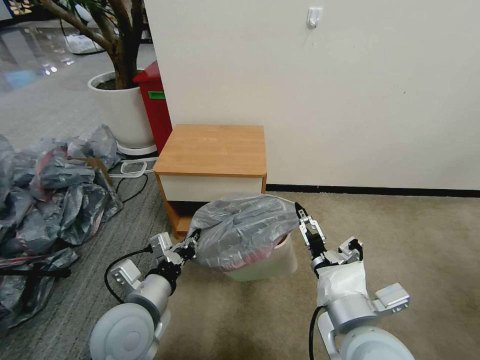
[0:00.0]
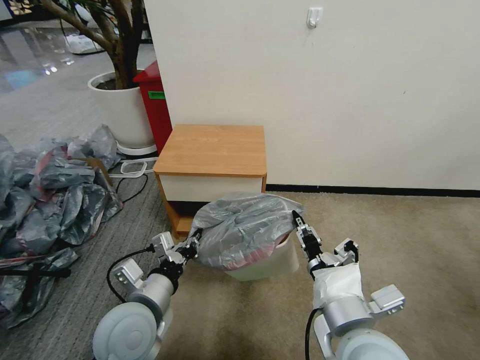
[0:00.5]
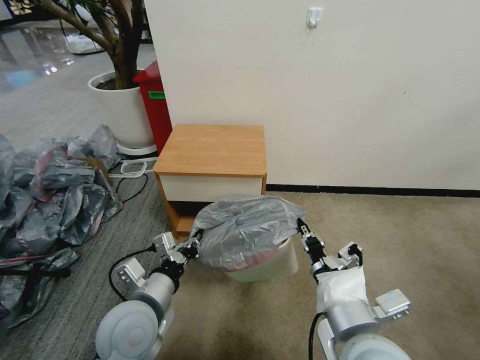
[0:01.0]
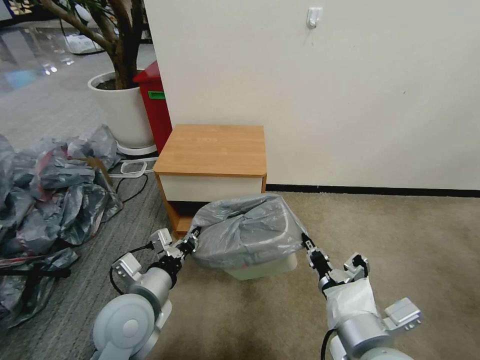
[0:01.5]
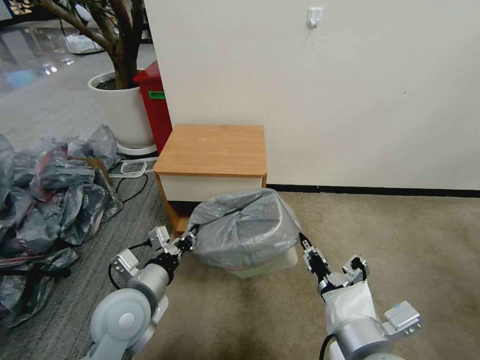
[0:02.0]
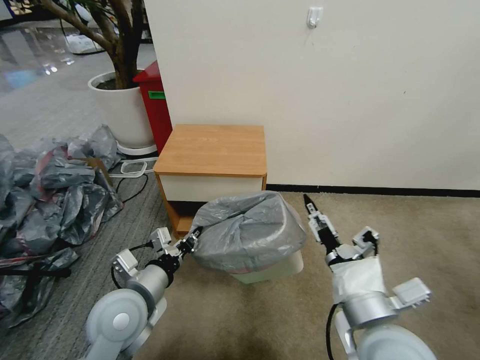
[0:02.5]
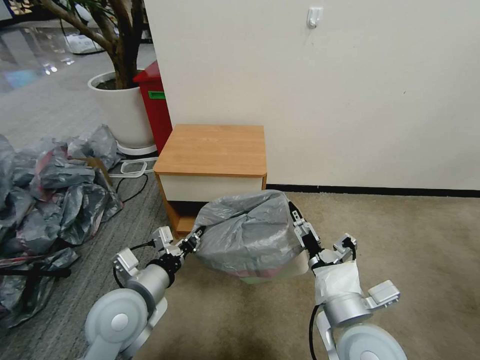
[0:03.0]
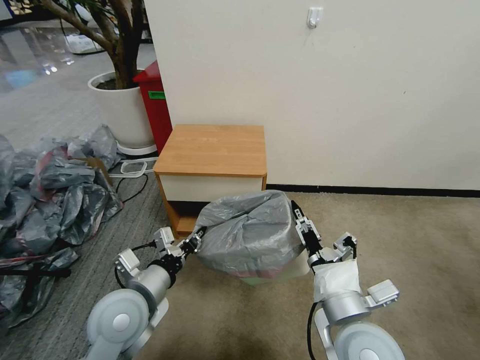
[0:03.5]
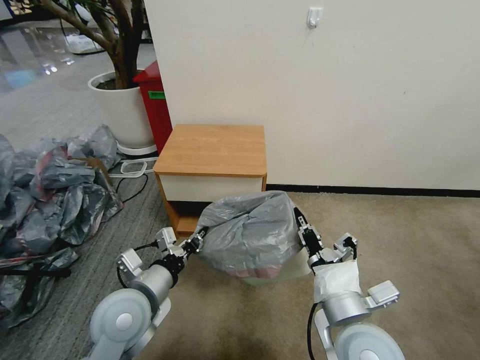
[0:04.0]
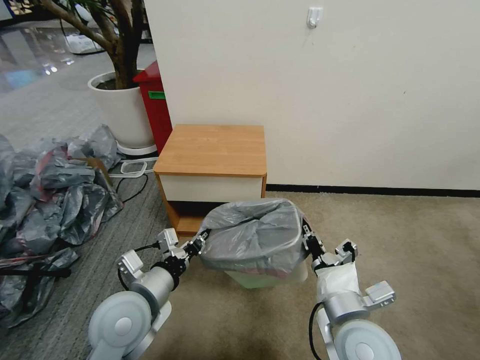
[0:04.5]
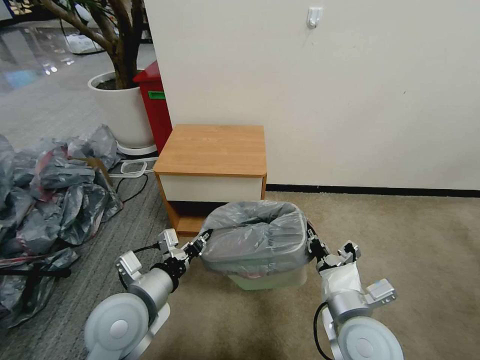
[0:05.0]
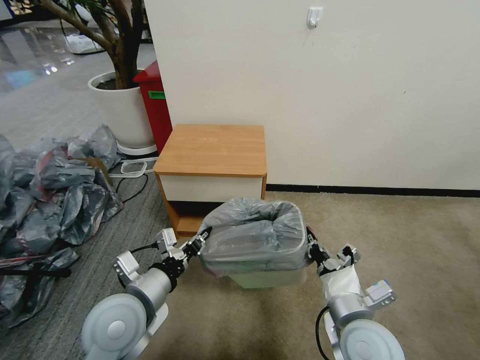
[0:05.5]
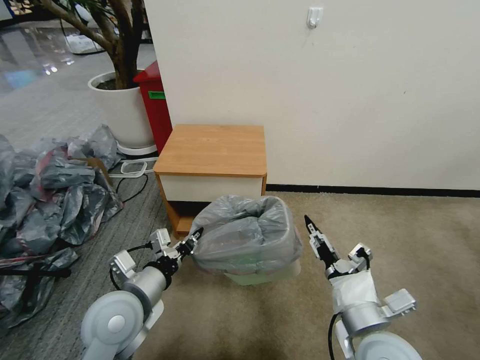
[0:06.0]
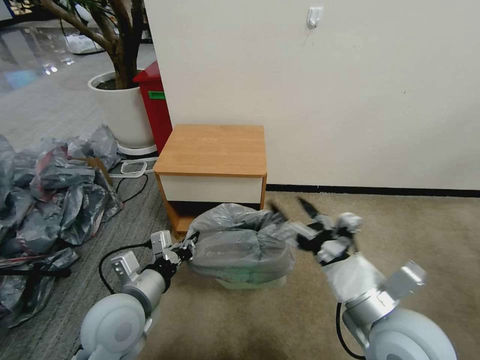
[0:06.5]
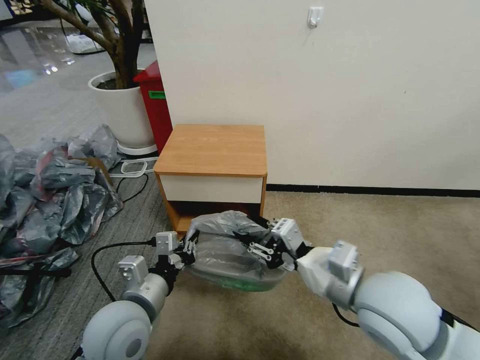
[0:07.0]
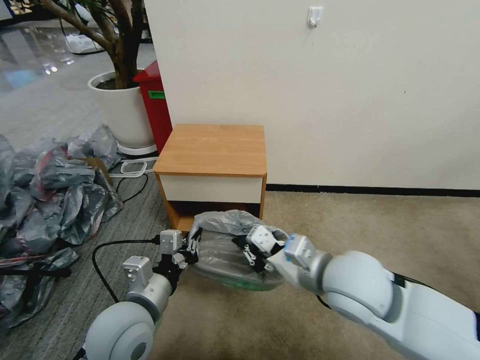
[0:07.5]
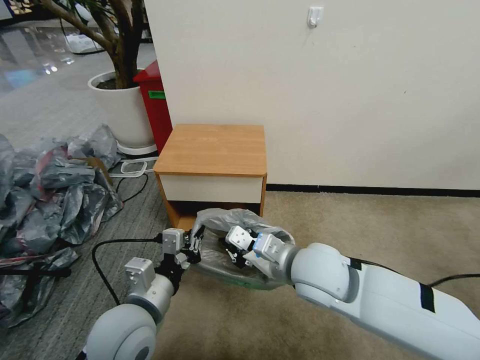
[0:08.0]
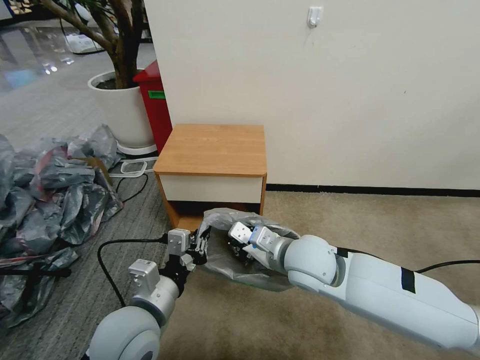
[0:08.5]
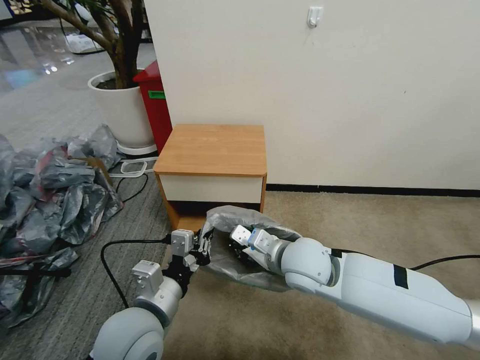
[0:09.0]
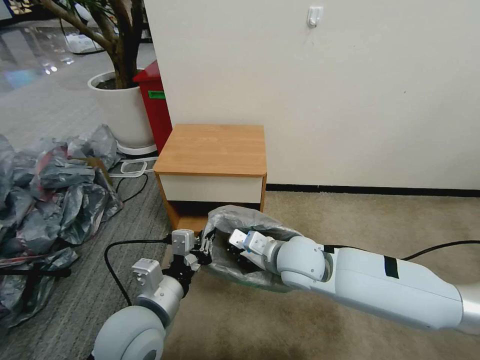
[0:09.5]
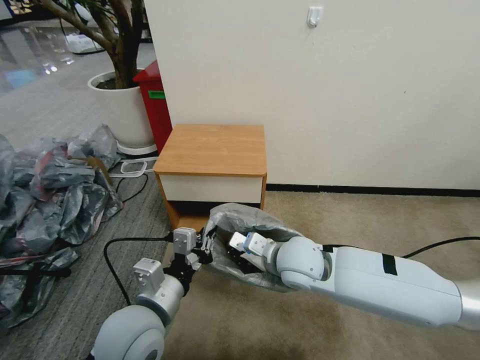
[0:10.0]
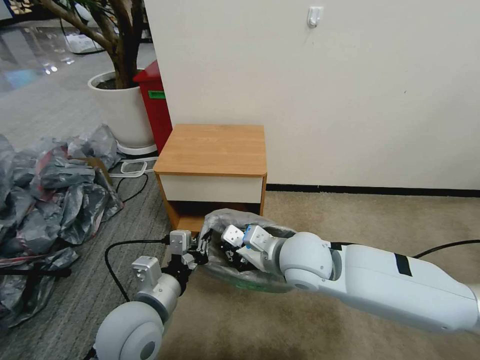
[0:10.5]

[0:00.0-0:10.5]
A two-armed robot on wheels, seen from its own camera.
Task of the whole recording: Pick up the garbage bag from the table and place it over the trash can.
0:00.0 to 0:02.0: The right gripper closes its fingers.
0:02.0 to 0:04.0: The right gripper changes place by roughly 5 cm, and opens, then closes once more.
0:04.0 to 0:06.5: The right gripper ends up some 5 cm from where it was, and opens its fingers.
0:06.5 to 0:08.5: The left gripper changes place by some 5 cm, while the right gripper goes approximately 15 cm forward and to the left, and closes up.
0:08.5 to 0:10.5: The grippers stay close to where they were, moving slightly.

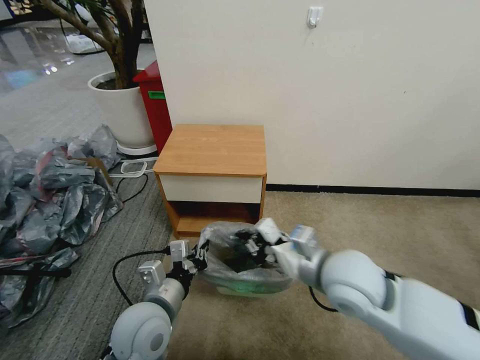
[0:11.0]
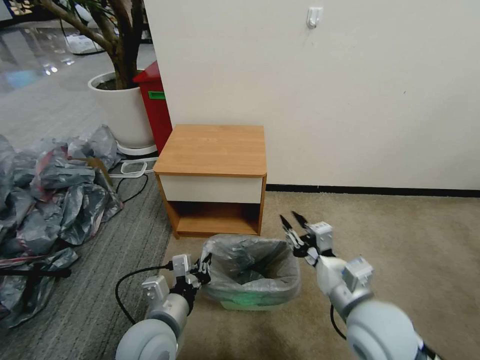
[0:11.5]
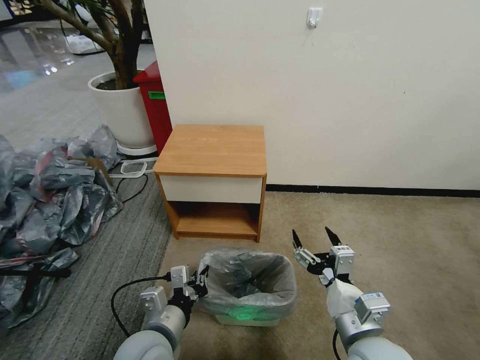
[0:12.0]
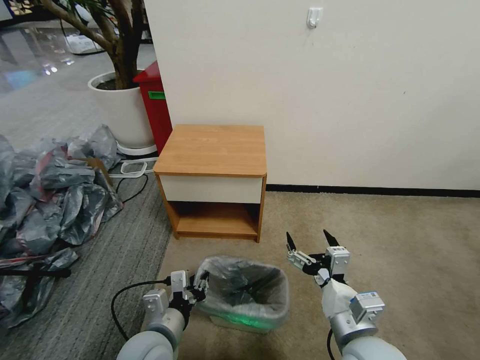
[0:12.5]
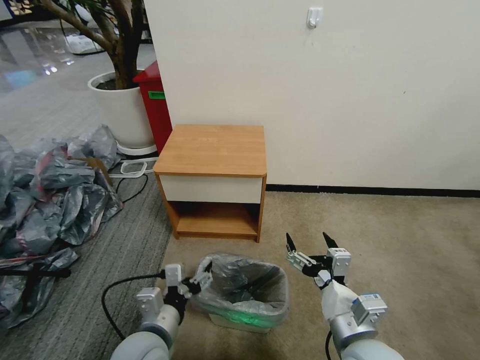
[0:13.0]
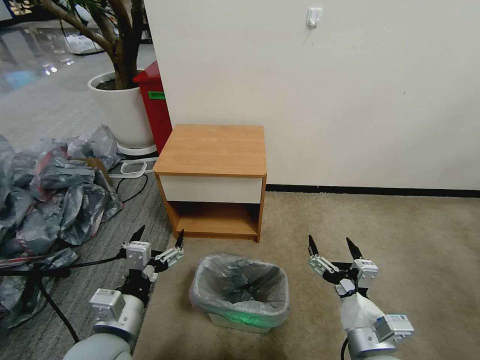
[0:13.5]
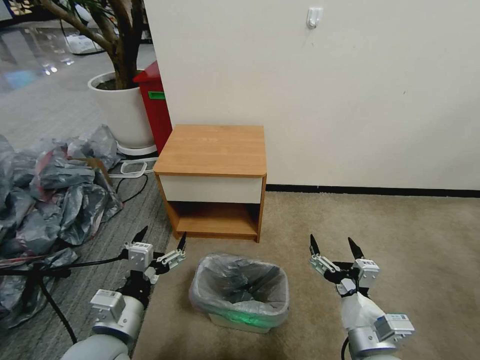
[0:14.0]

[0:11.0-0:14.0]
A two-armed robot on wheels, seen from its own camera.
Task of the whole recording: Pick up the garbage bag from the table and place it over the trash can.
0:11.0 to 0:12.5: The right gripper shifts approximately 15 cm backward and downward, and opens up, while the left gripper ends up some 5 cm from where it was.
0:12.5 to 0:14.0: The left gripper goes roughly 10 cm upward and to the left, and opens its fingers.

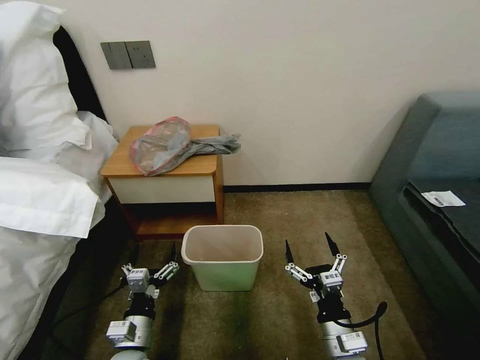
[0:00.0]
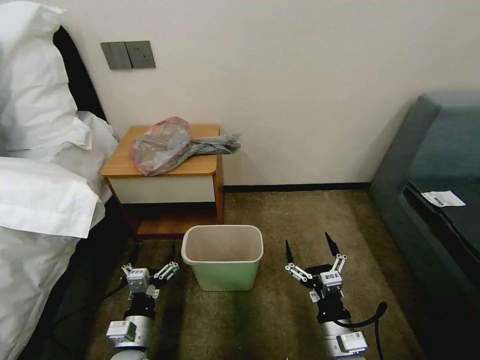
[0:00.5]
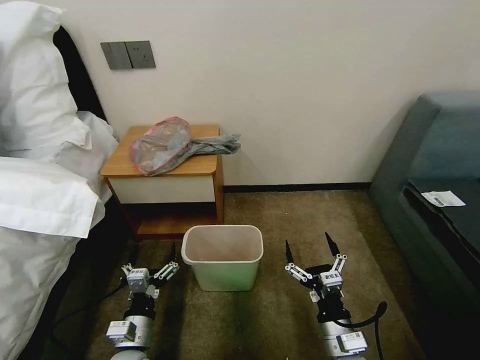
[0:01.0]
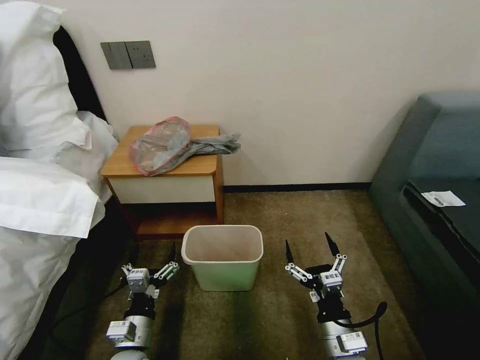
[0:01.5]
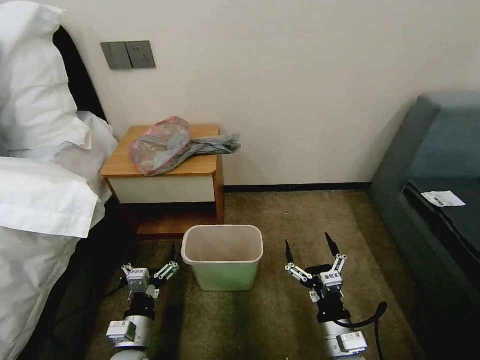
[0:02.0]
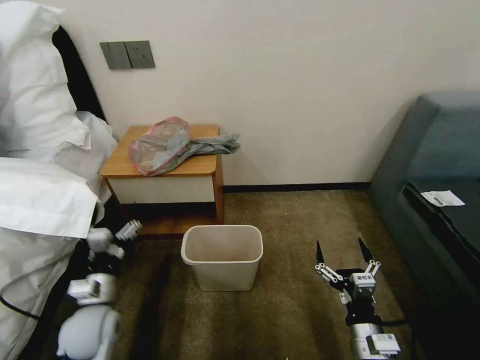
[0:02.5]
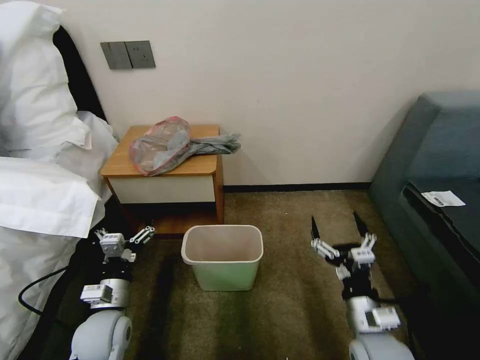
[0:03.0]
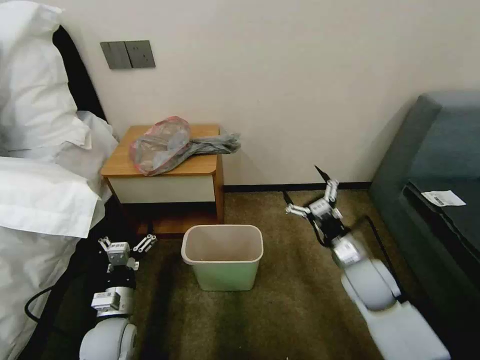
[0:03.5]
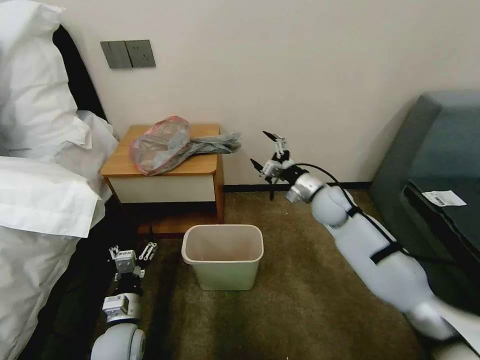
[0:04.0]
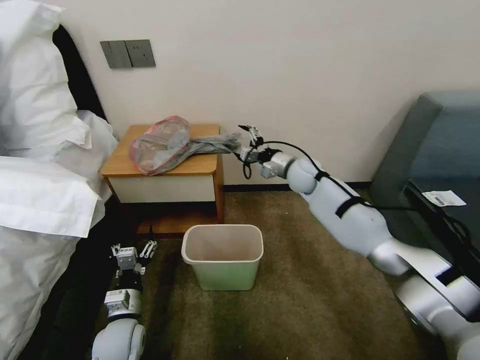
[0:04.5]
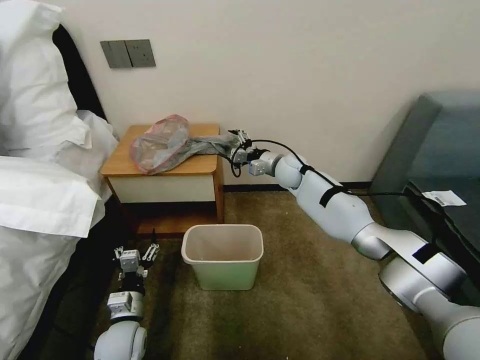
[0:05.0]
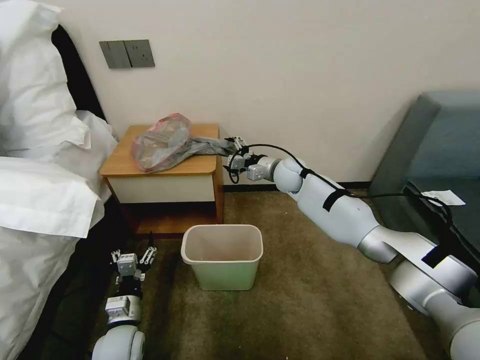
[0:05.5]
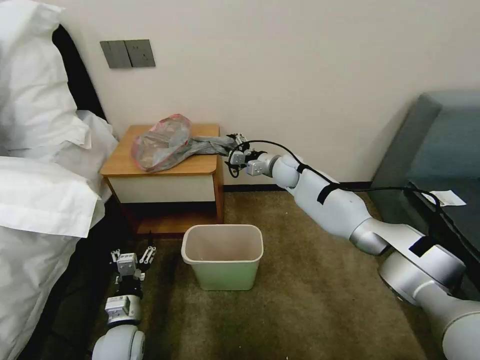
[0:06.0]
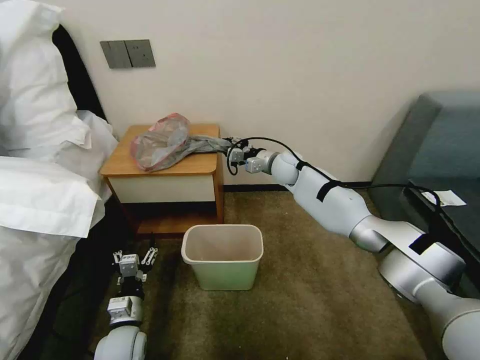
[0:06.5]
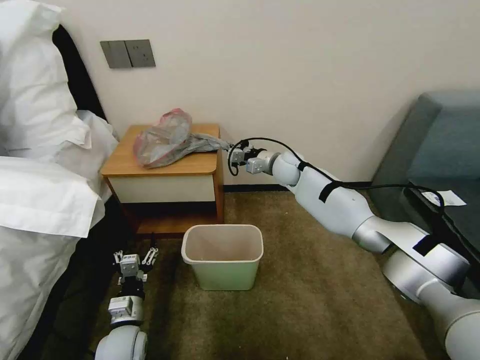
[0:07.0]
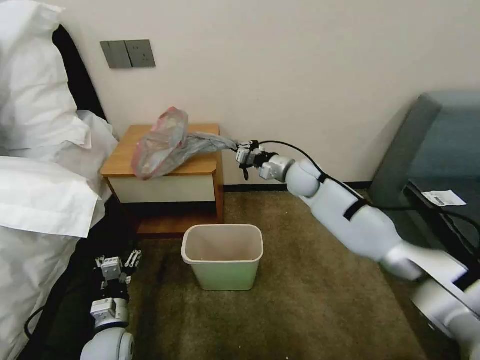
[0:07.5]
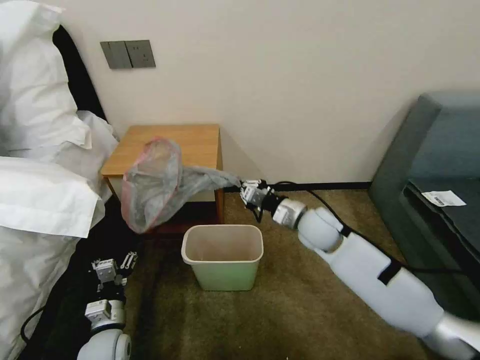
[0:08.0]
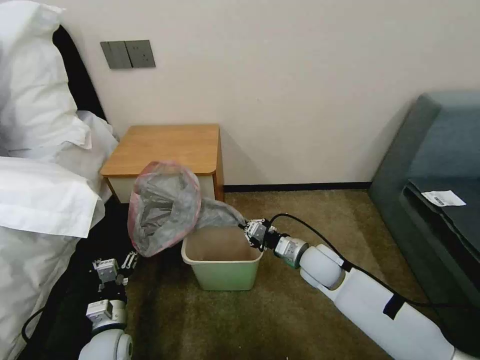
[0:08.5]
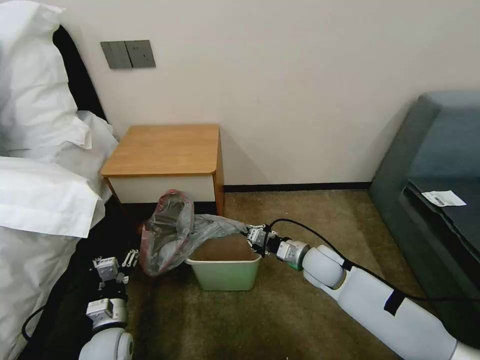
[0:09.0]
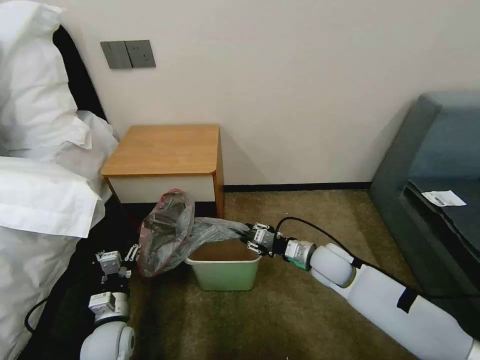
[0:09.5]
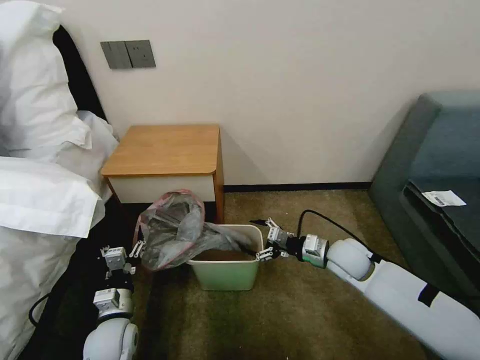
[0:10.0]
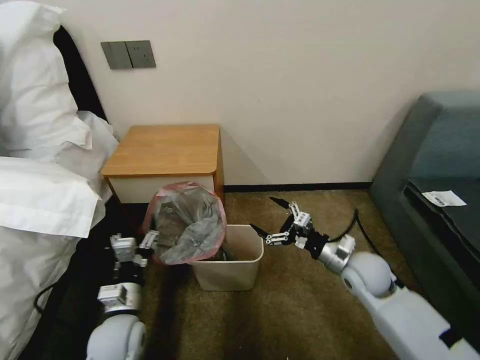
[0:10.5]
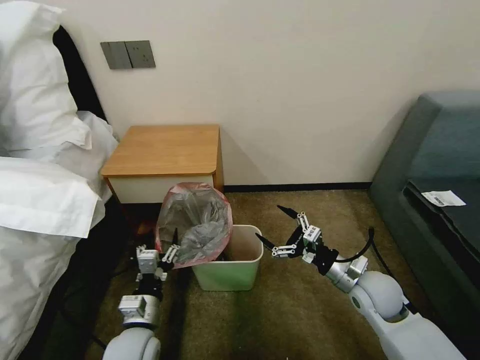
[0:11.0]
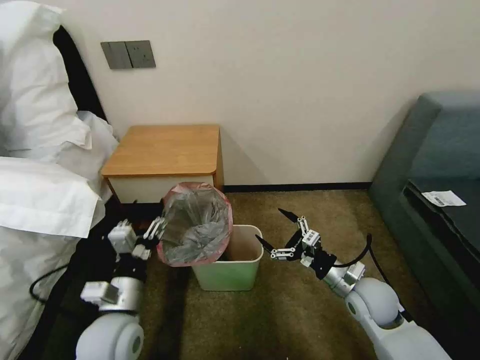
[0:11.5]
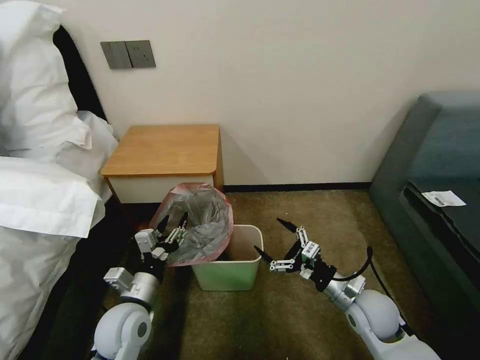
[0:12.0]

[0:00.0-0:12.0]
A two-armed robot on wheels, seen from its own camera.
Task of the whole recording: Pick up the garbage bag from the table and place it over the trash can.
0:02.0 to 0:04.0: The right gripper travels forward by roughly 35 cm, while the left gripper heads forward, covering some 5 cm.
0:04.0 to 0:06.0: The right gripper shifts some 15 cm forward and to the left.
0:06.0 to 0:08.0: The right gripper goes some 20 cm backward, and closes its fingers.
0:08.0 to 0:10.0: The right gripper heads to the right and downward, covering approximately 10 cm, and opens up.
0:10.0 to 0:12.0: The left gripper heads upward, covering about 5 cm, while the right gripper is displaced backward by some 10 cm.
